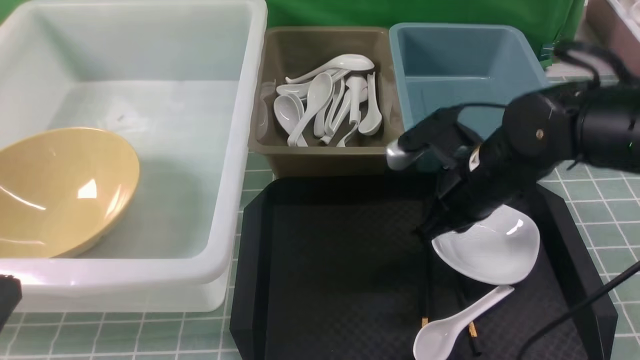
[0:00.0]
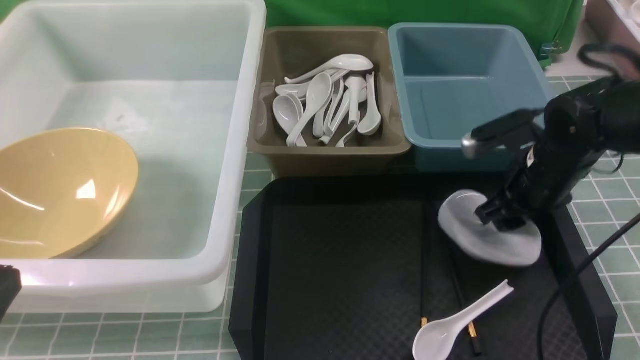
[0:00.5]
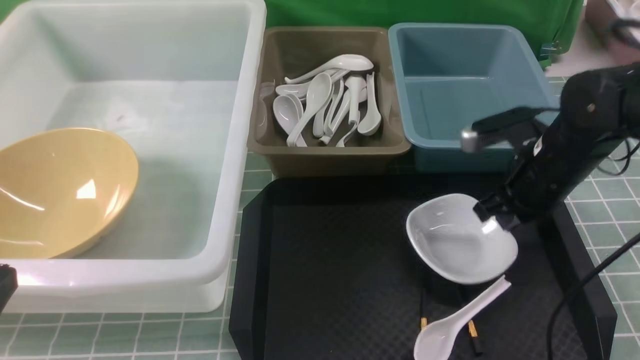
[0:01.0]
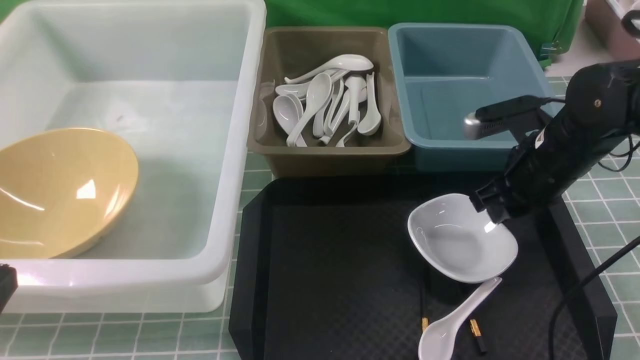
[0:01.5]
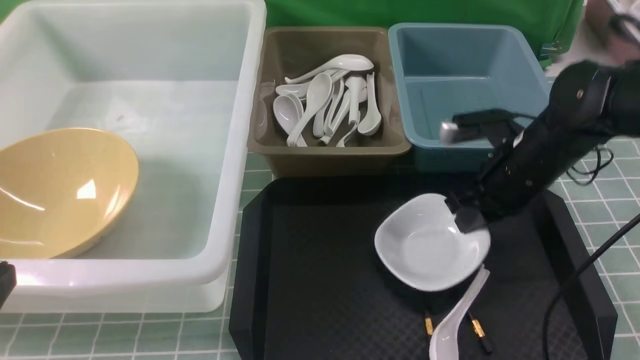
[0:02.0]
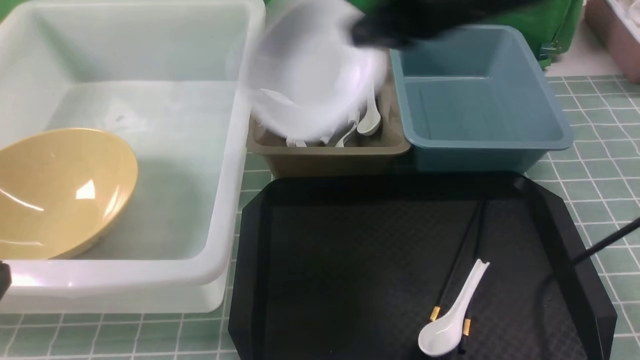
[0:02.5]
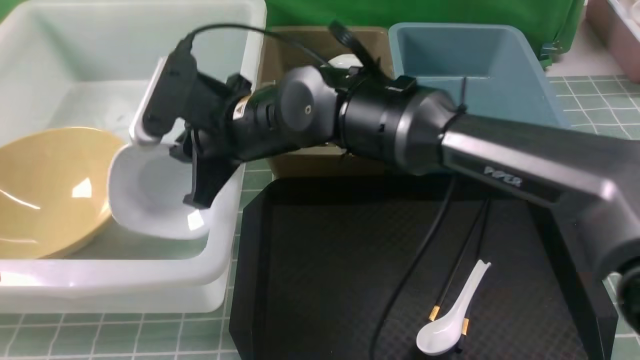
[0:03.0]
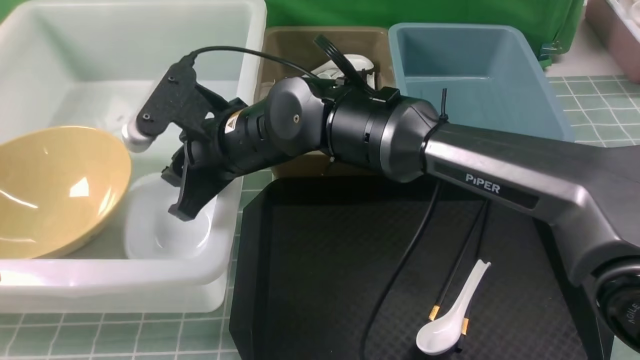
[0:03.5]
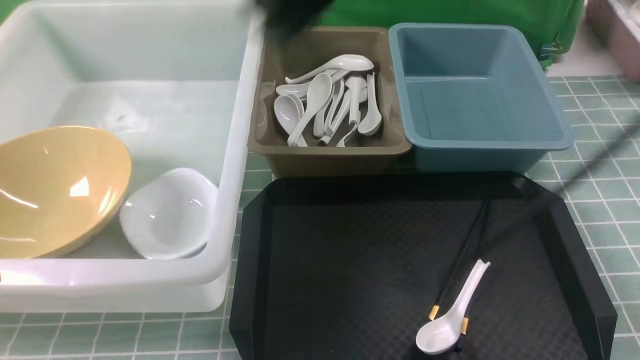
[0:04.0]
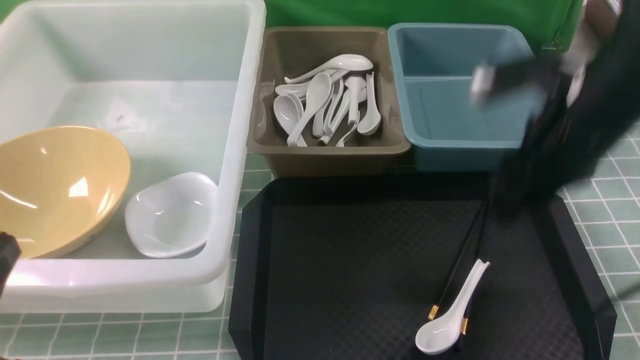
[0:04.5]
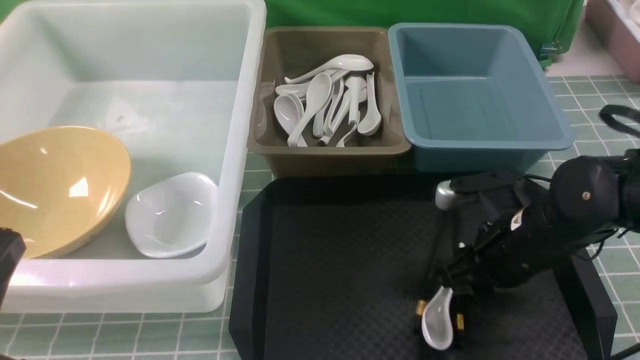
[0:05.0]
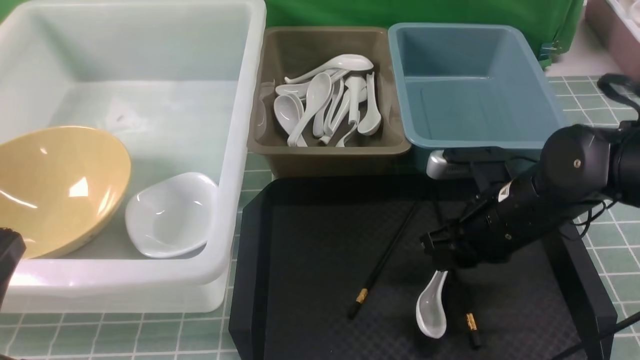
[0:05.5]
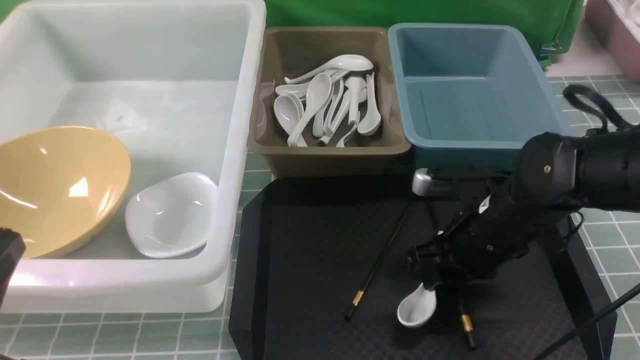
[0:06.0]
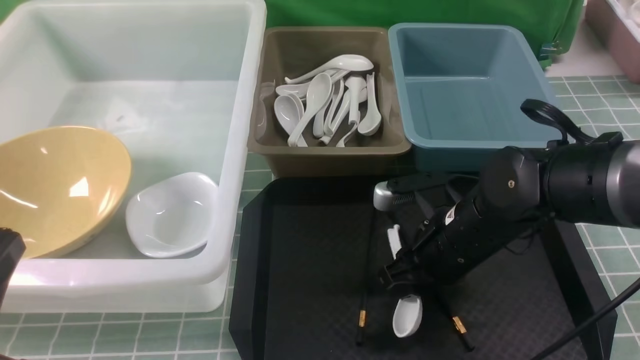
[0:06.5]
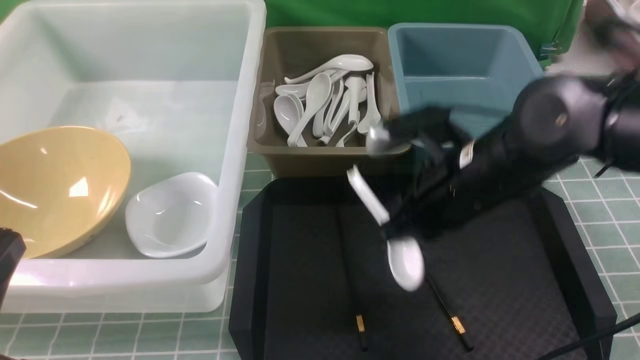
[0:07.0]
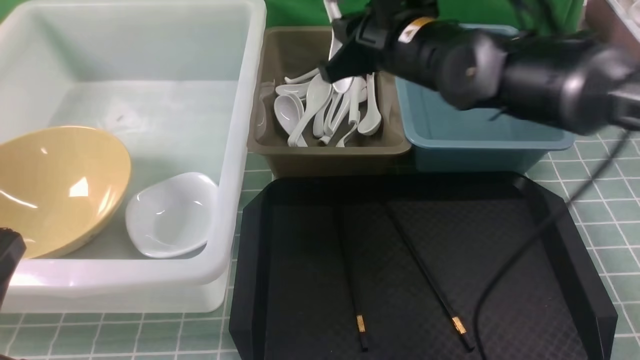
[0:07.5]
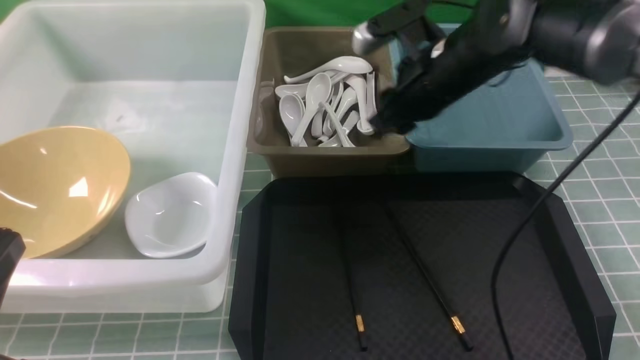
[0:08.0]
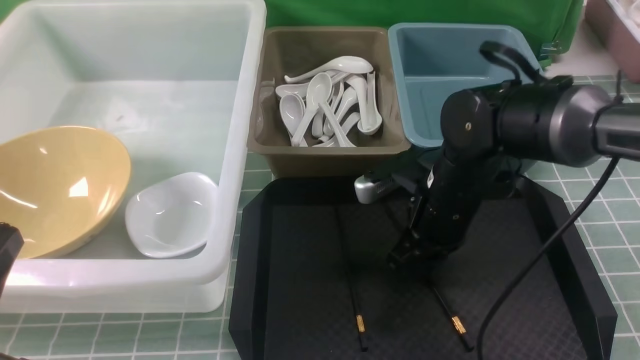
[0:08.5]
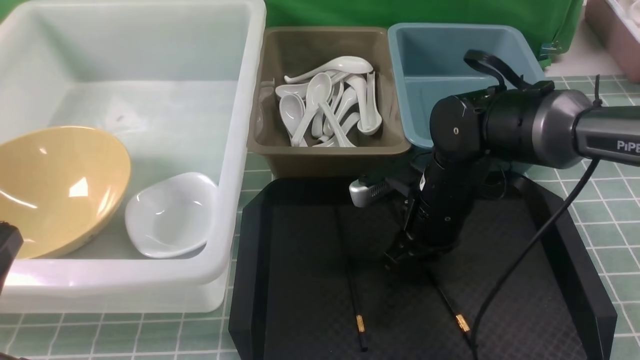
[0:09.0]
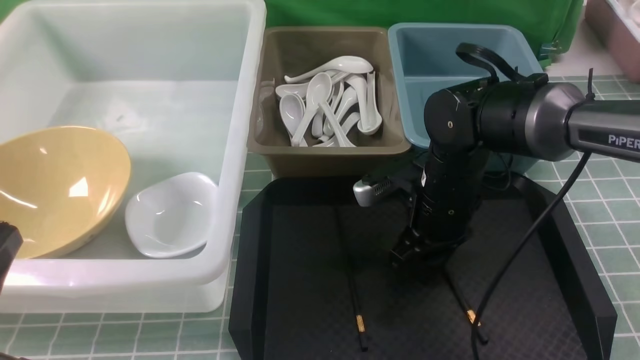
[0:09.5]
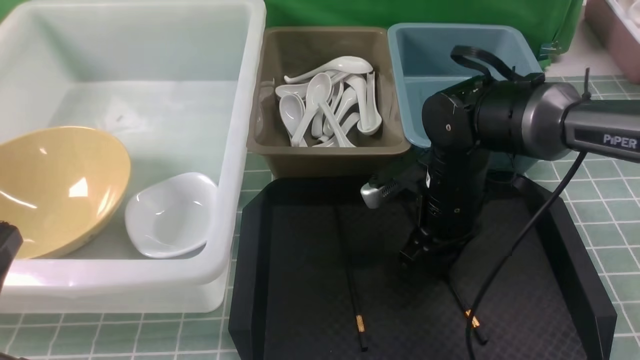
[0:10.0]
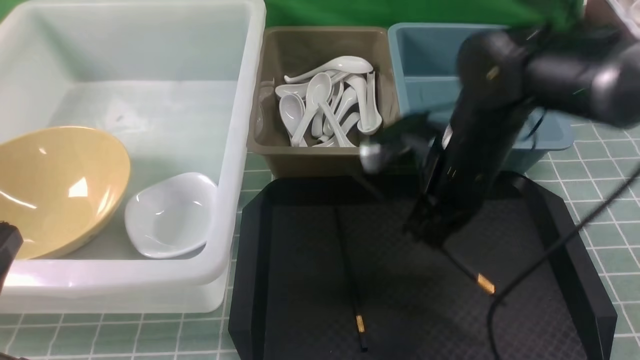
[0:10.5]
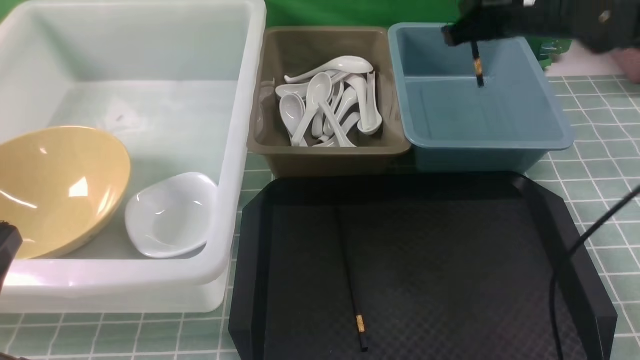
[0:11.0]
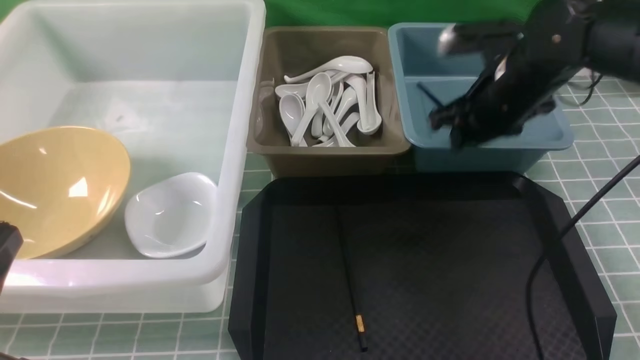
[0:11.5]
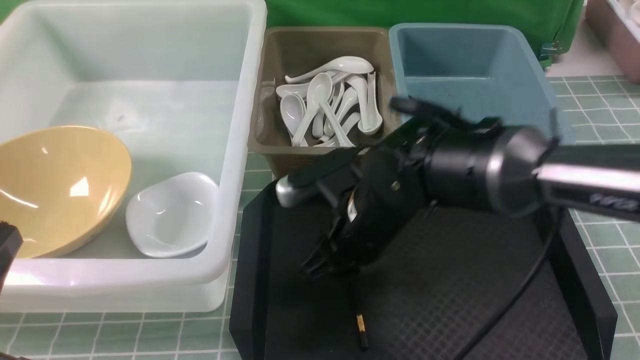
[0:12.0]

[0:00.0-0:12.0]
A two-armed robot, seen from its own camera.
Task of the whole recording: on blue table put chopsticks spoon bowls plates into blue grey white boxes.
Step, 0:00.0 to 0:02.0: use the right arm to grab the plate.
Step, 0:02.5 to 0:03.5: use the right arm to put the plate into the large storage box on the left.
Step, 0:04.0 to 0:06.5: use the right arm to grab the soup spoon in the middle.
Step, 0:07.0 to 0:07.5: use the right arm to put the soup spoon into the small storage box in the middle.
Step, 0:08.0 to 0:10.5: use the right arm to grab a chopstick.
0:00.0 to 0:02.0: The right gripper opens, then closes again.
0:02.0 to 0:04.0: The right gripper heads upward and to the left, covering some 25 cm, and opens up.
0:04.0 to 0:06.0: The right gripper shifts some 25 cm downward.
0:06.0 to 0:08.0: The right gripper goes some 15 cm forward and upward, and closes, then opens again.
0:08.0 to 0:10.0: The right gripper shifts about 10 cm downward and backward.
0:10.0 to 0:12.0: The right gripper heads to the left, covering about 10 cm, and closes, then opens again.

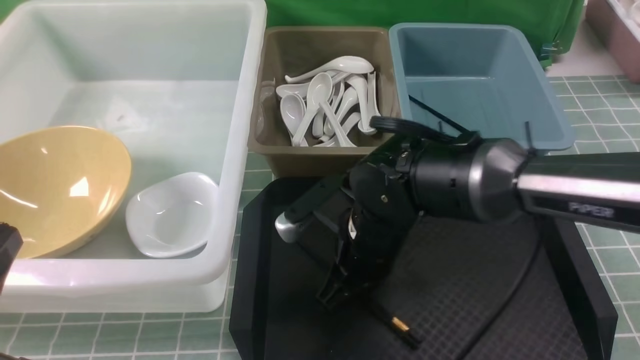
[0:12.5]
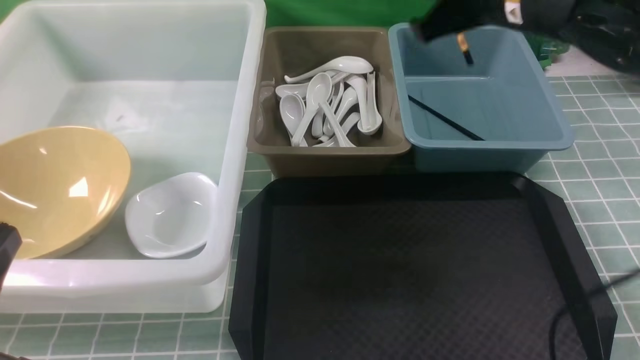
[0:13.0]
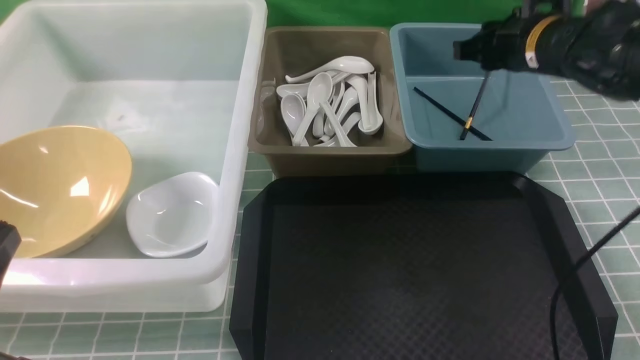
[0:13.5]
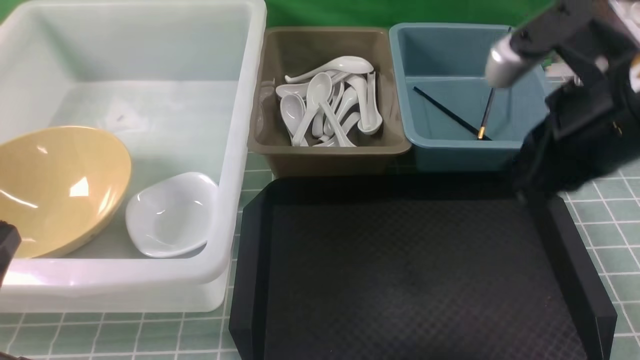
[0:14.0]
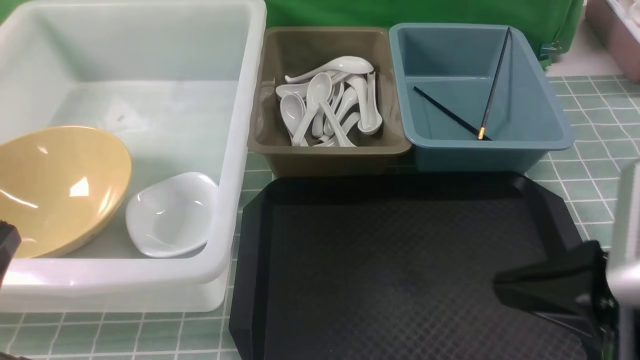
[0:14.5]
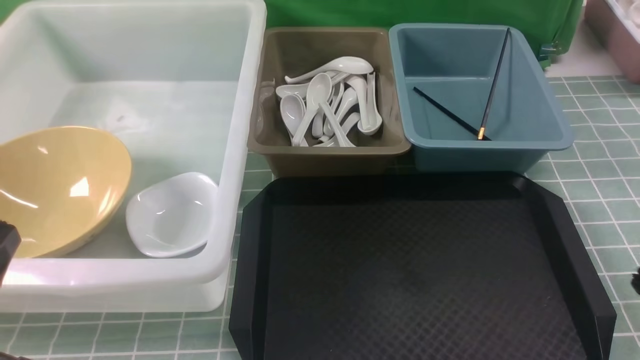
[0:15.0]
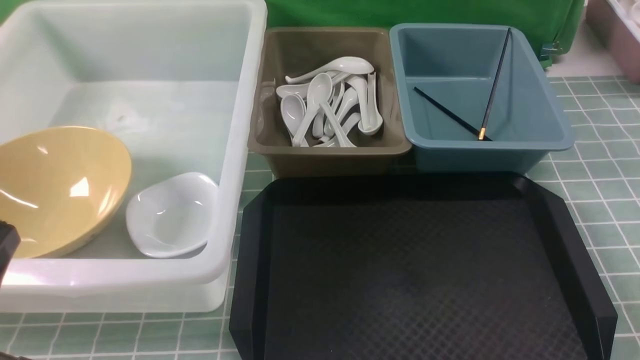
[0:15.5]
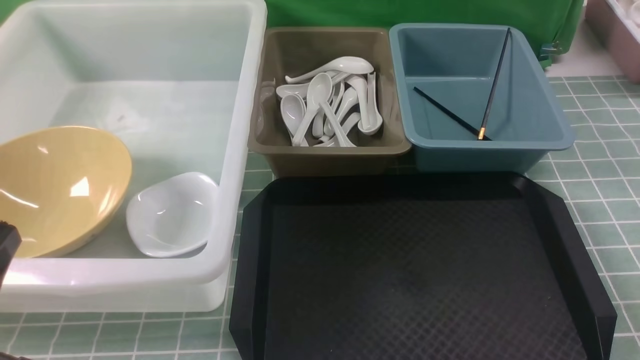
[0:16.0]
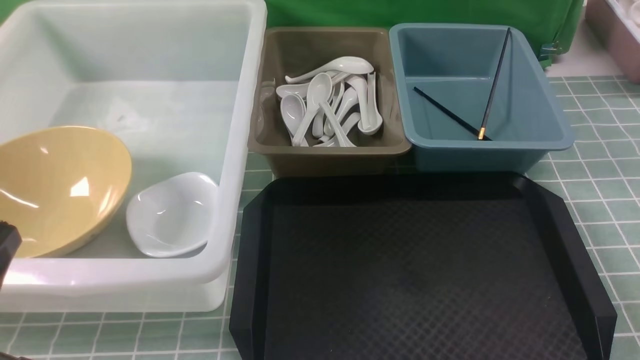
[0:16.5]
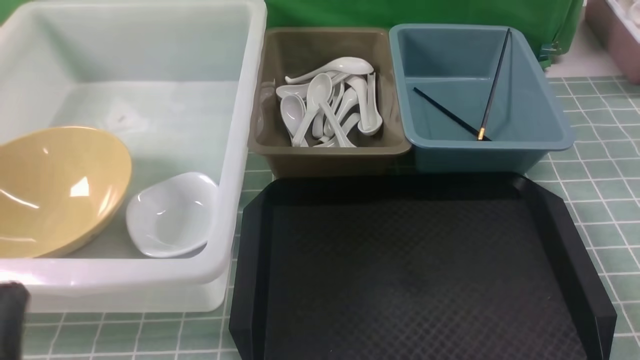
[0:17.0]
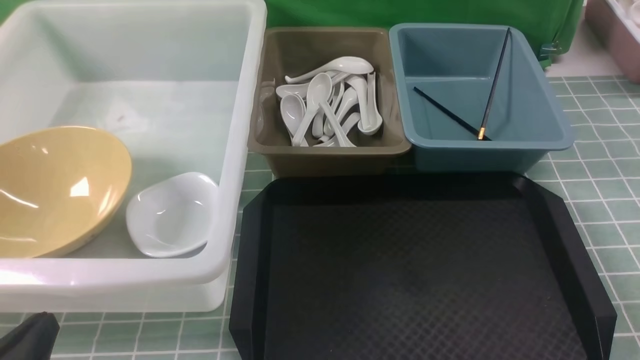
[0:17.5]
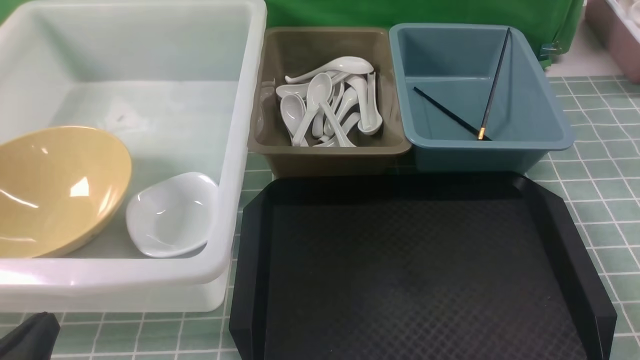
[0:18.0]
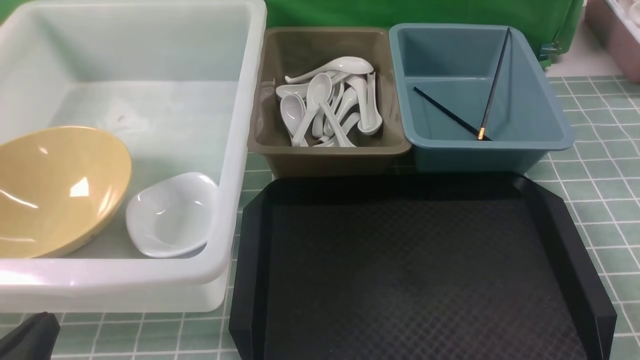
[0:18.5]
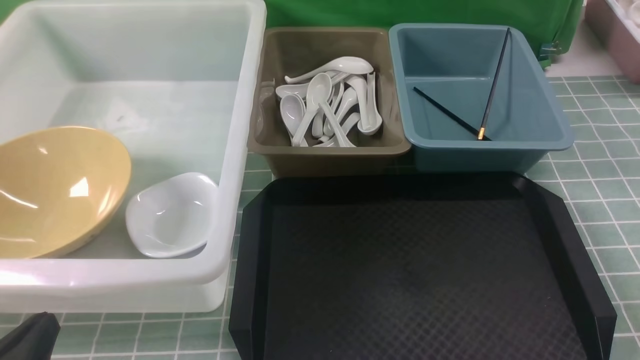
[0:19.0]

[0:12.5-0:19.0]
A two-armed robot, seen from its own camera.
Task of the whole recording: on blue table put chopsticks spoon bowls plates into blue grey white boxes.
Step, 0:13.0 to 0:13.5: use the right arm to put a chopstick into the small storage box on the right.
0:12.5 to 0:14.5: The right gripper goes approximately 25 cm to the right, backward and upward.
0:14.5 to 0:17.0: The left gripper moves downward, roughly 5 cm. The right gripper travels downward, to the right and backward by some 20 cm.
0:17.0 to 0:19.0: There are only small adjustments of the grippers.
